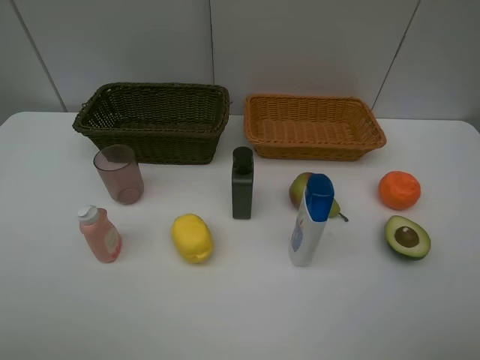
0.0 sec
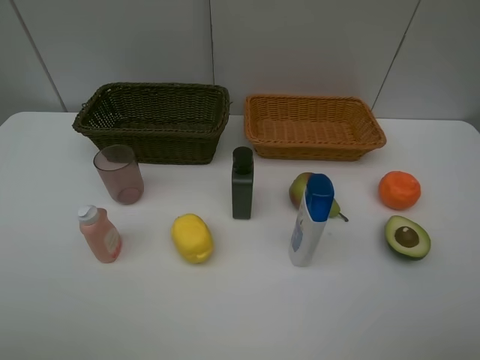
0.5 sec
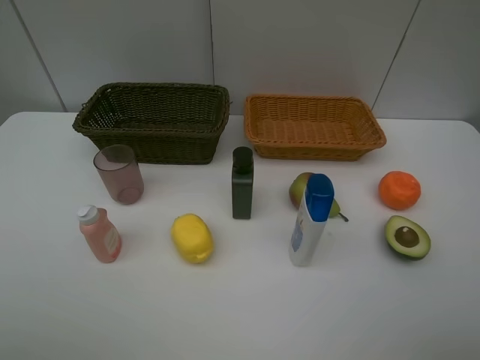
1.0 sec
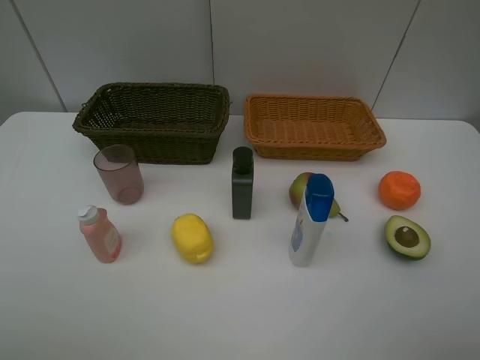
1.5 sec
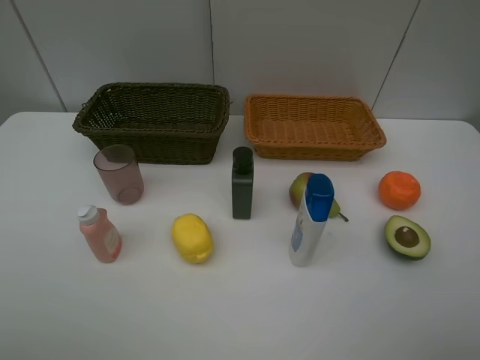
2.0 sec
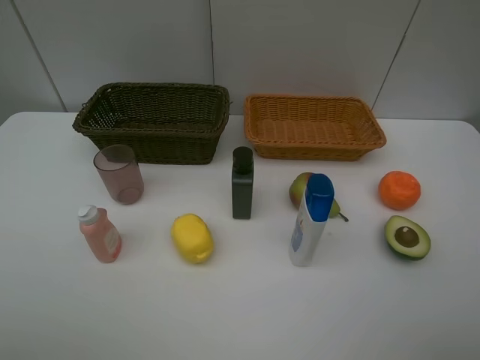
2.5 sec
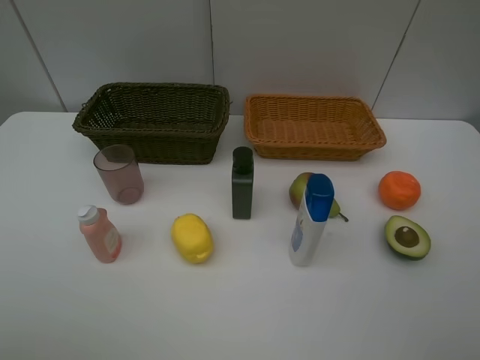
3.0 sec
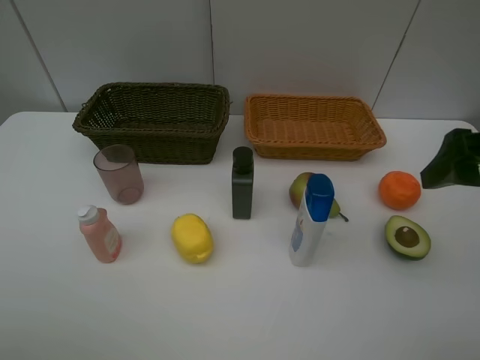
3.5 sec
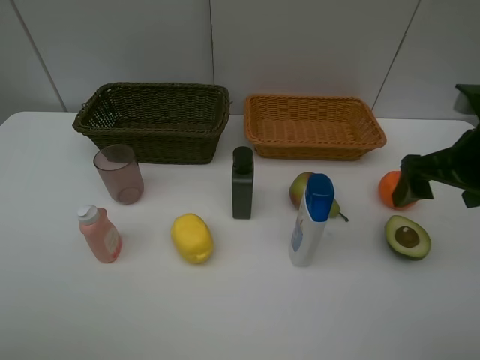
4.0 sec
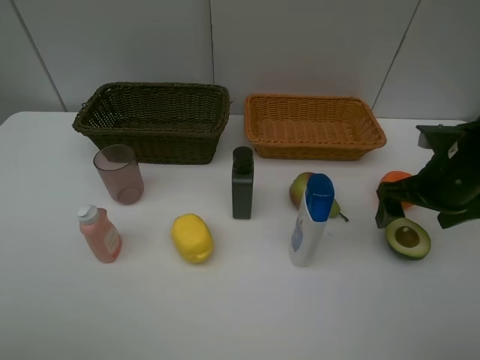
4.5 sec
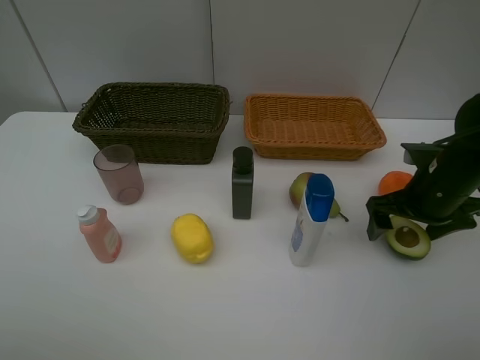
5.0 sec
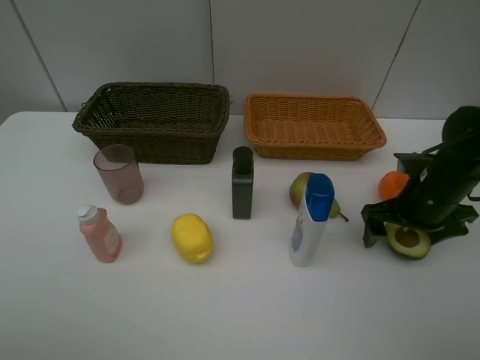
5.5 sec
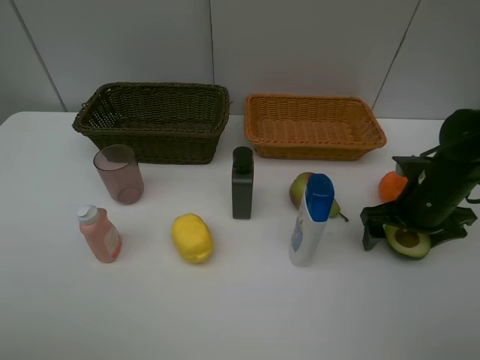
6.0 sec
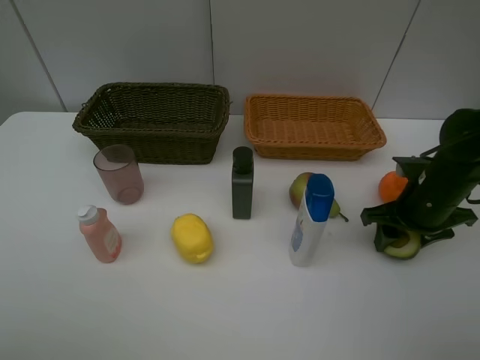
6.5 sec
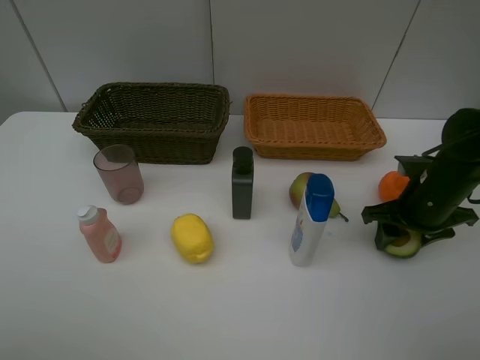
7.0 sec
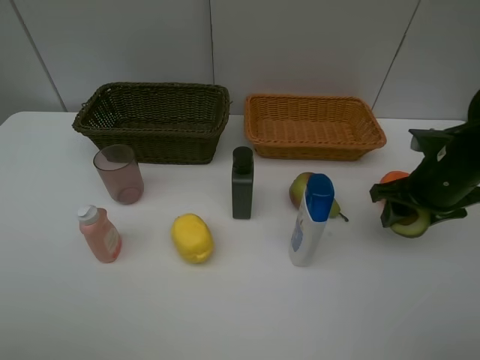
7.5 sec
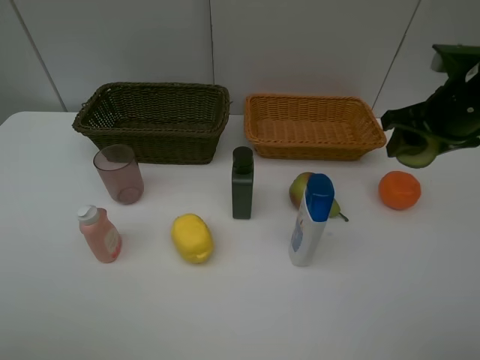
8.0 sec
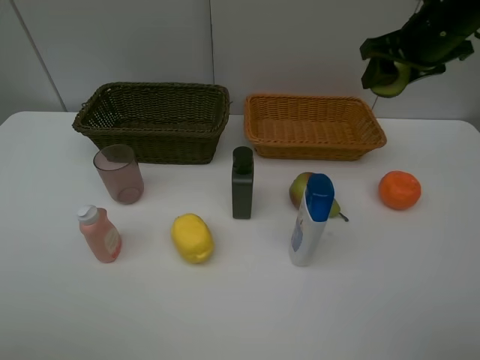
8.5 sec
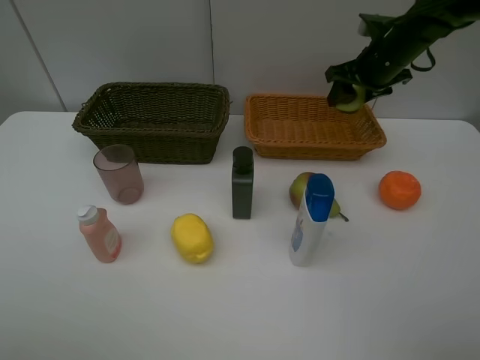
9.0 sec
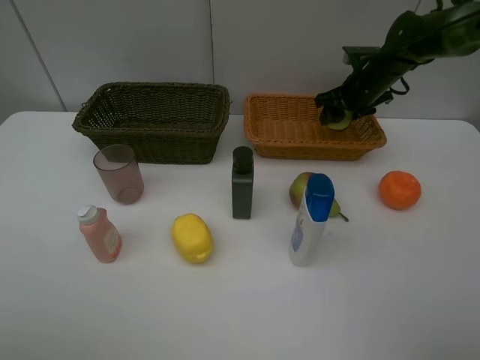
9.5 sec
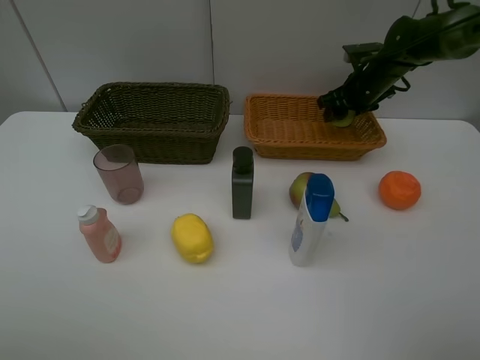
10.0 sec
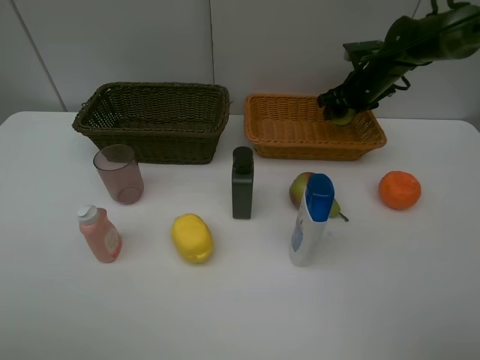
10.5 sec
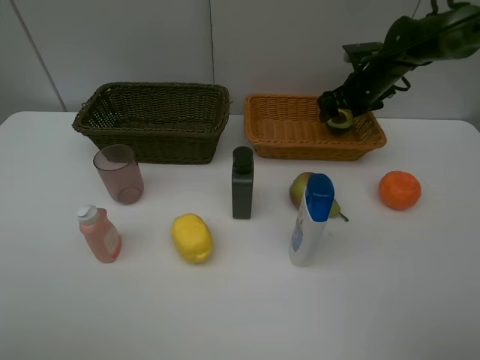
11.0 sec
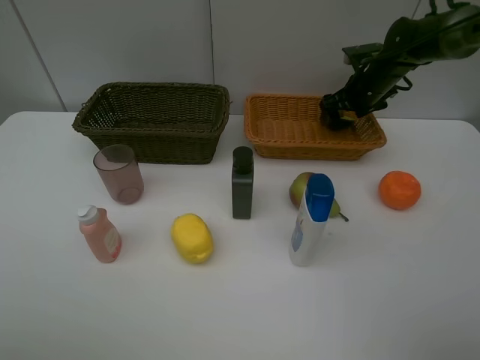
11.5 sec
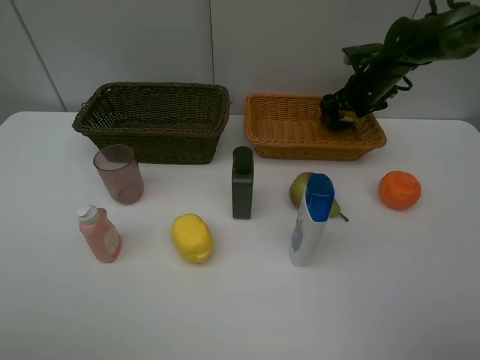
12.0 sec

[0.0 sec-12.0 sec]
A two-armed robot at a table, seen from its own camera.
Task of the whole recording: Place multiple objects separately in different baskets.
Step, 0.0 sec to 7.0 sec: Pick up the avocado with right gripper.
0.0 sec to 2.0 sec: Both grippers stay put.
2.0 sec to 4.0 sec: The right gripper moves forward, approximately 20 cm.
4.0 sec to 6.0 sec: The right gripper travels downward by approximately 10 cm.
6.0 sec to 8.0 sec: The right gripper heads upward, covering roughly 15 cm, and closes its fingers.
8.0 sec to 10.0 sec: The right gripper shifts about 20 cm forward and downward.

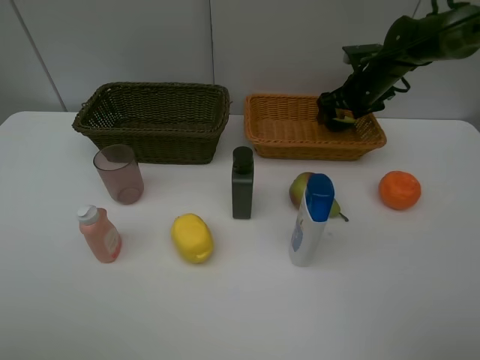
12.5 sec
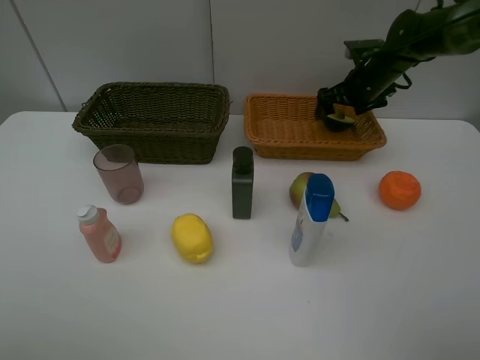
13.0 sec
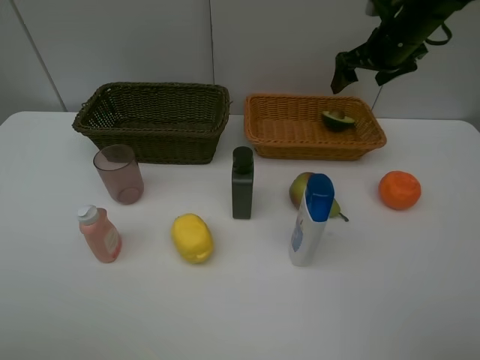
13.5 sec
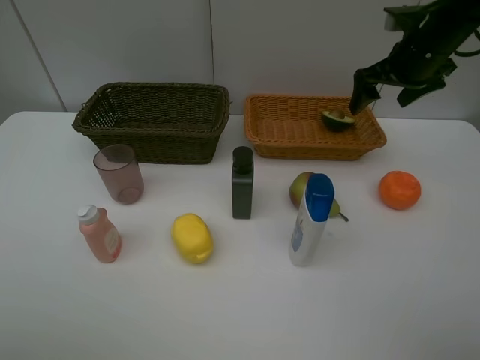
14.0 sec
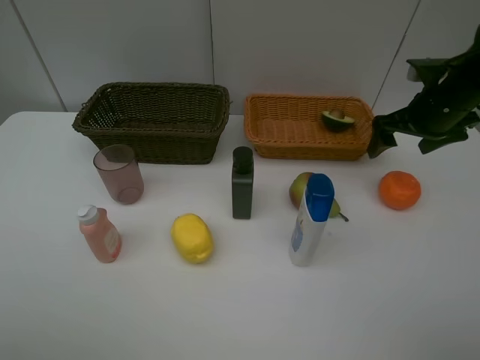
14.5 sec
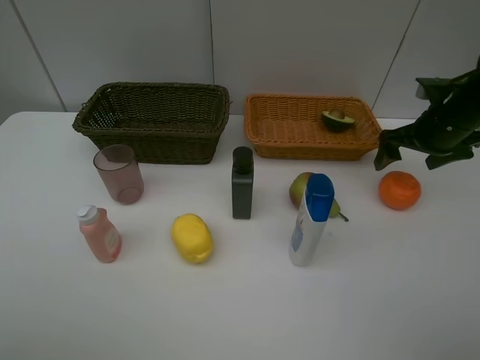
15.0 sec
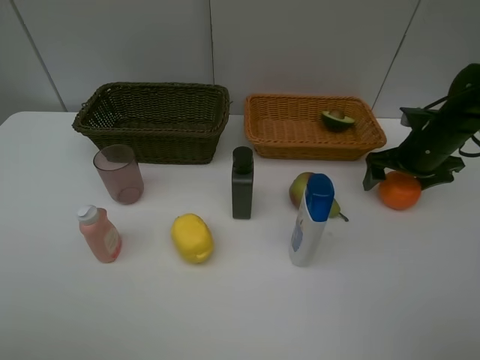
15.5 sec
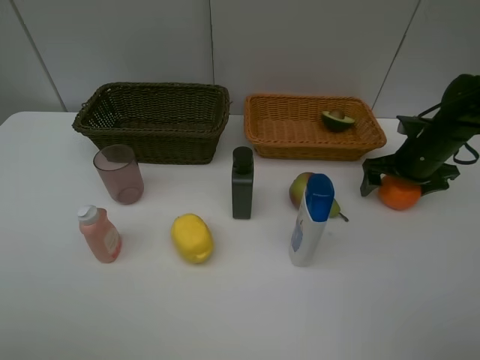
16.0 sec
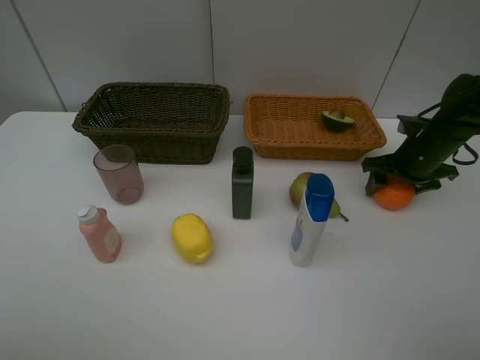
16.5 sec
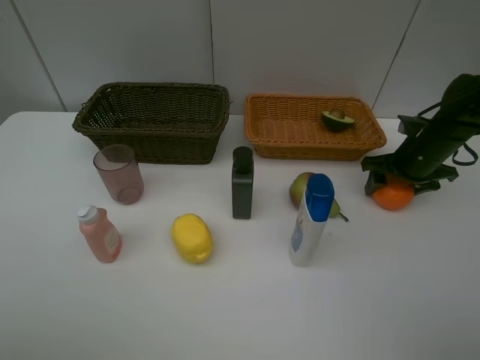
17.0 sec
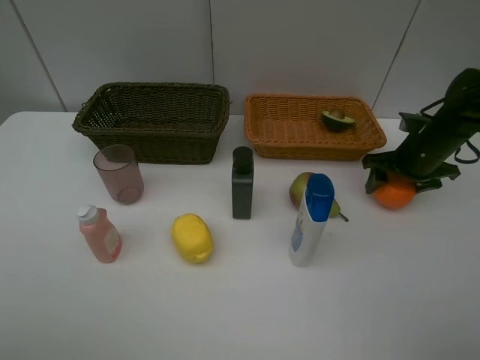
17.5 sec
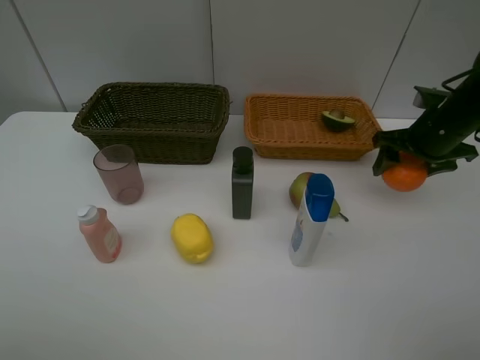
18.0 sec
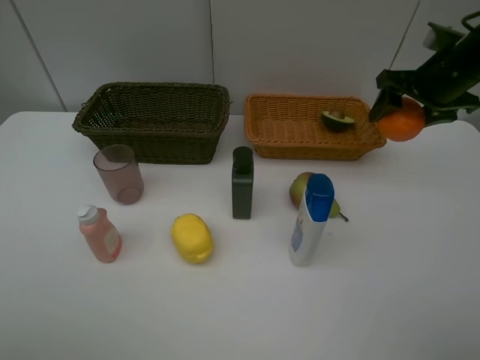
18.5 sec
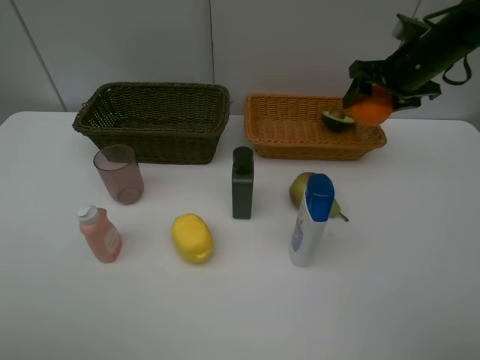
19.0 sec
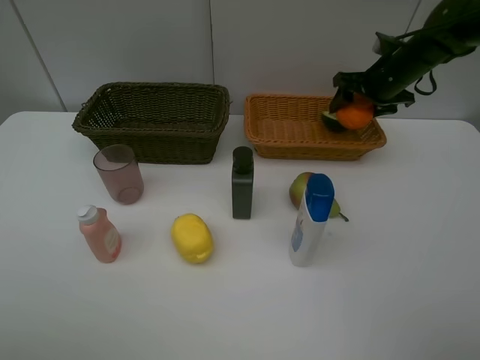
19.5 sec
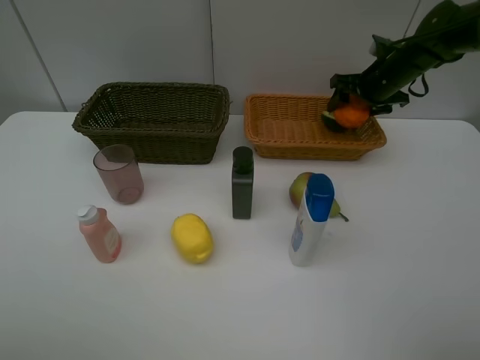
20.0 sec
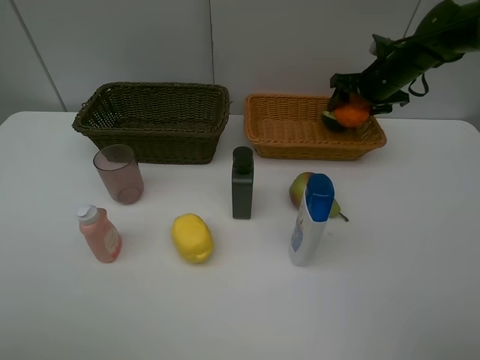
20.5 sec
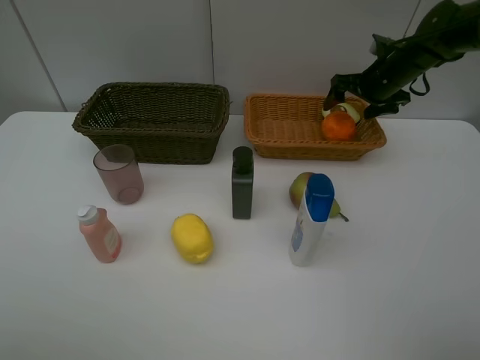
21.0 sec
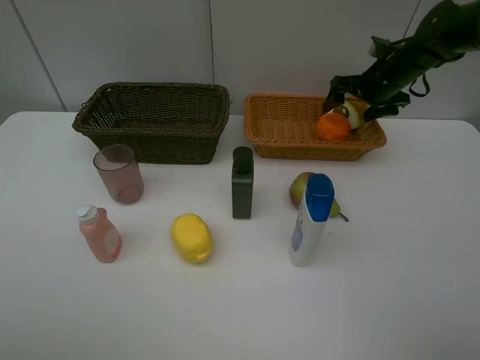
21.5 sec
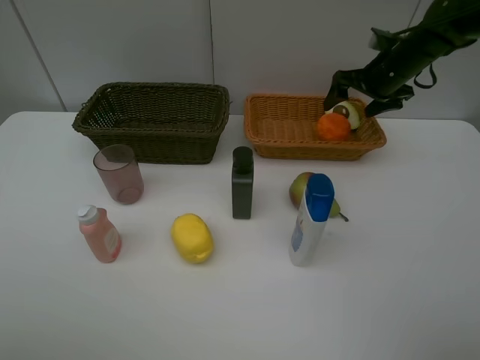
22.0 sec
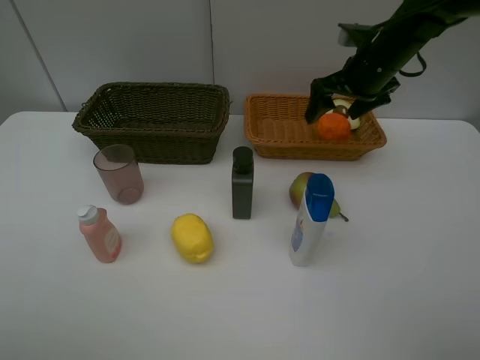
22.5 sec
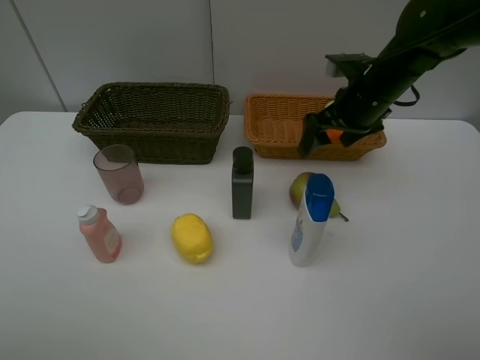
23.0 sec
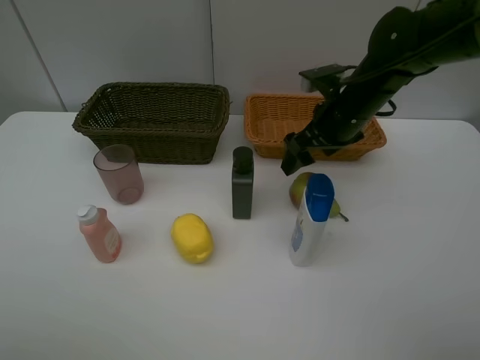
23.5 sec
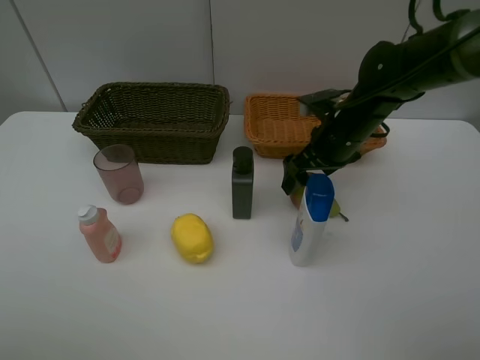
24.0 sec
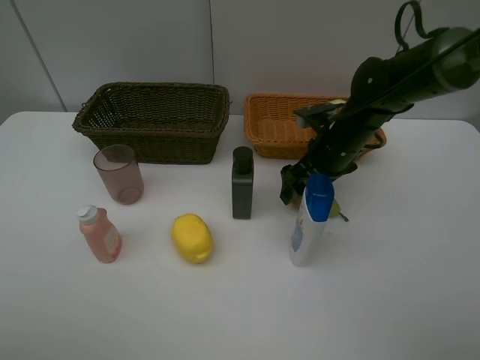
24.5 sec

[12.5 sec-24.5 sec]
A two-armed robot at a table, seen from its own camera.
Task of the whole recording: Place multiple objects separately in different baskets.
Step, 13.5 sec to 17.5 sec: Pick up the orange with right gripper.
Step, 18.0 sec to 21.5 sec: Place the orange in the light basket with right gripper.
12.5 sec to 14.5 sec: The right gripper is displaced backward by about 15 cm.
14.5 sec to 16.5 sec: The right gripper travels downward by approximately 10 cm, and closes.
16.5 sec to 18.5 sec: The right gripper is displaced upward by roughly 15 cm.
18.5 sec to 20.5 sec: The right gripper goes approximately 15 cm forward and downward.
20.5 sec to 22.5 sec: The right gripper travels backward and to the left by some 10 cm, and opens its fingers.
22.5 sec to 24.5 sec: The right gripper shifts roughly 10 cm downward and backward.

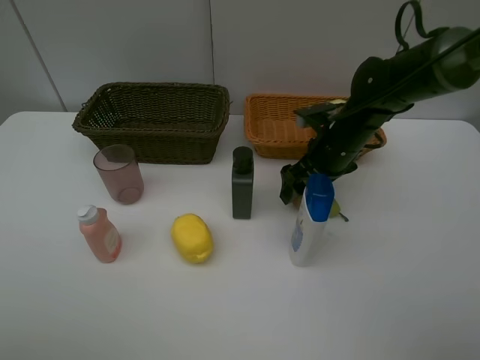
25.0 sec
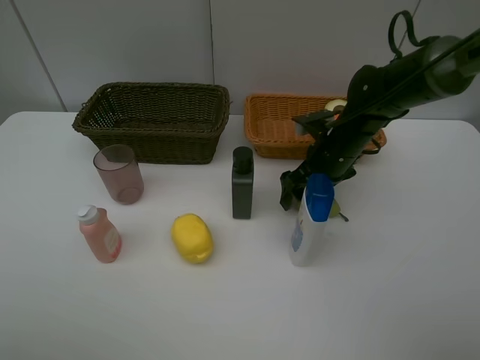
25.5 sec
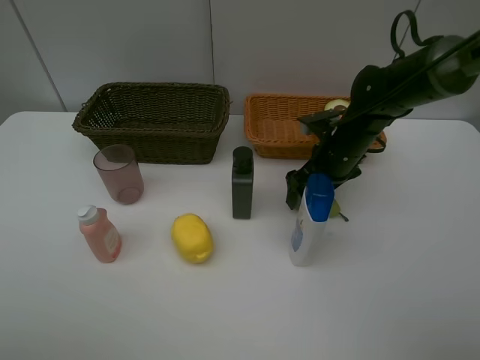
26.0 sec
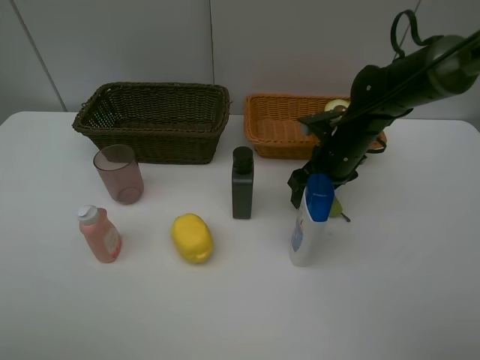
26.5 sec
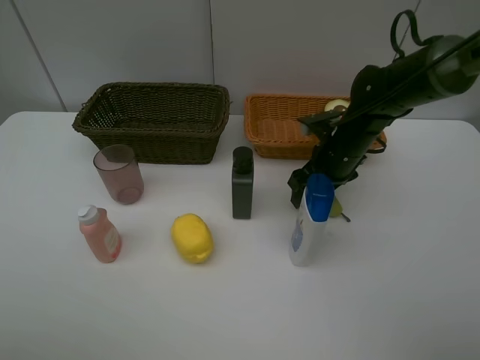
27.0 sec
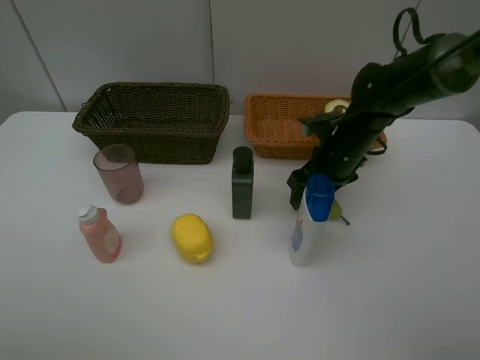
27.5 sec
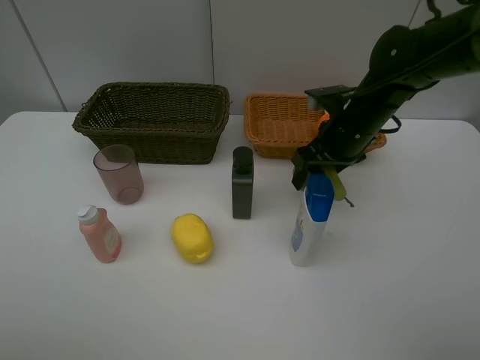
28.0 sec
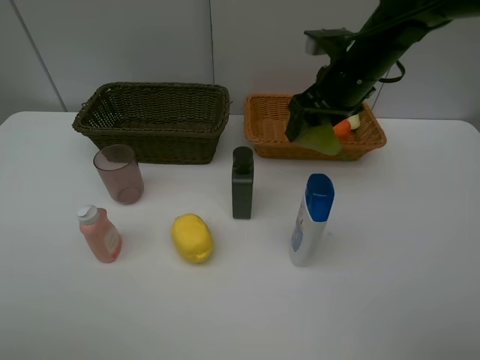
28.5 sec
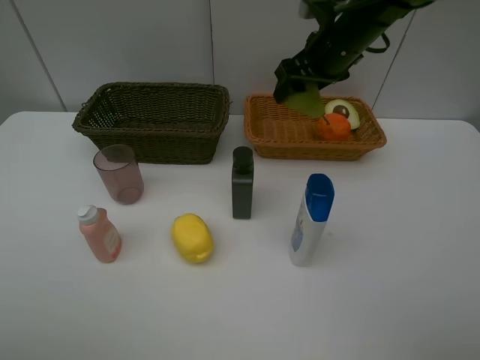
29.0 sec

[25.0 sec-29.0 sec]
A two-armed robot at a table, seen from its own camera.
Task of the whole recording: Place multiple objects separately in different baskets.
Step, 25.0 sec to 27.5 sec: Pick up the pear with right gripper.
25.0 sec to 27.0 sec: The right gripper closes its fingers.
27.0 sec to 29.0 sec: The right gripper travels upward and forward by roughly 15 cm.
